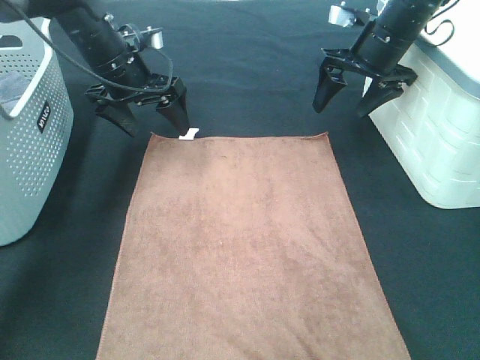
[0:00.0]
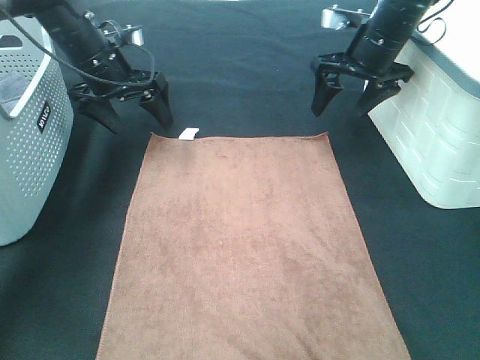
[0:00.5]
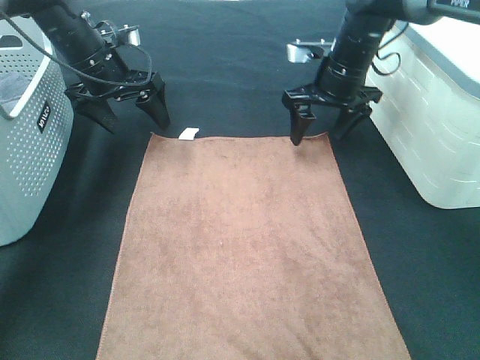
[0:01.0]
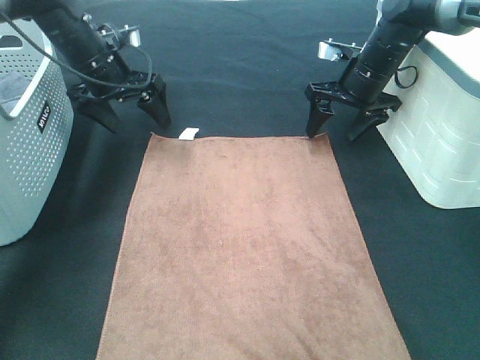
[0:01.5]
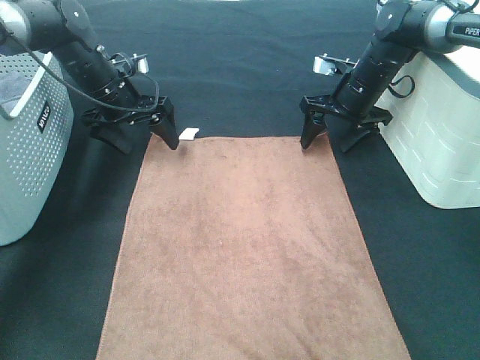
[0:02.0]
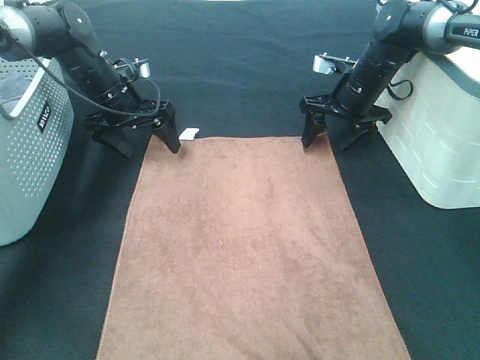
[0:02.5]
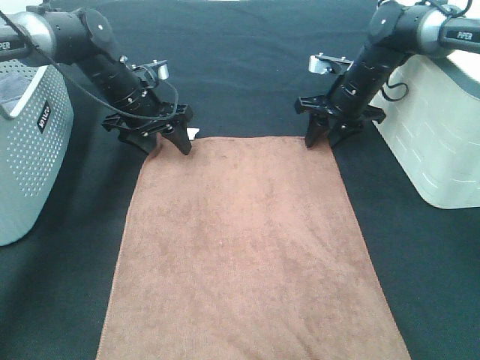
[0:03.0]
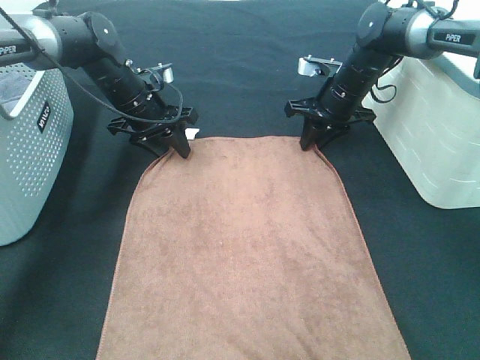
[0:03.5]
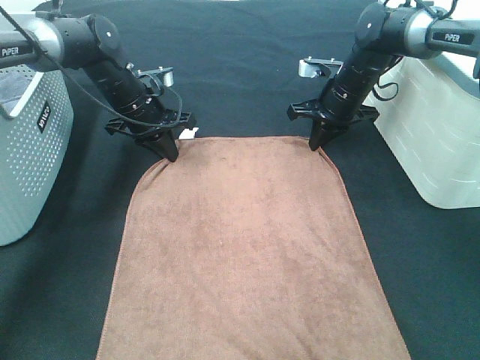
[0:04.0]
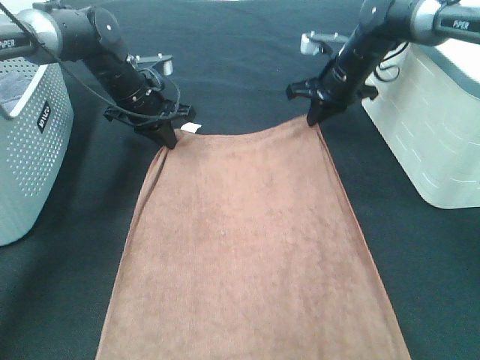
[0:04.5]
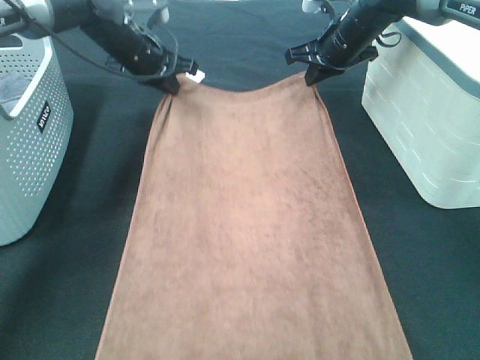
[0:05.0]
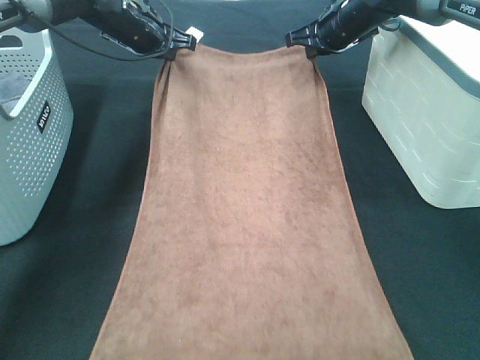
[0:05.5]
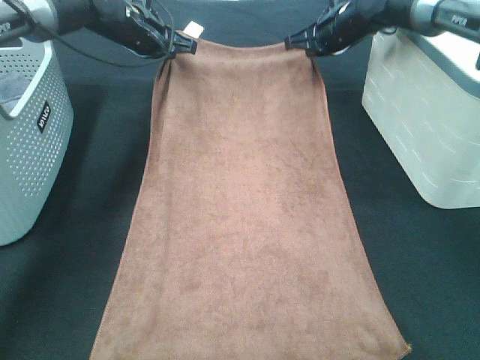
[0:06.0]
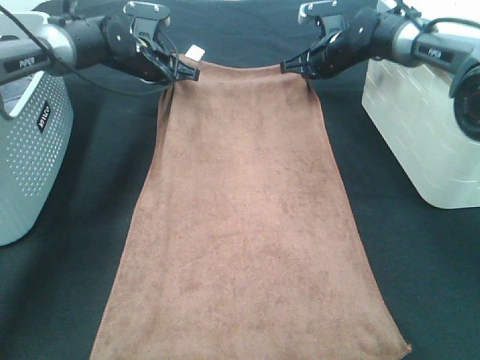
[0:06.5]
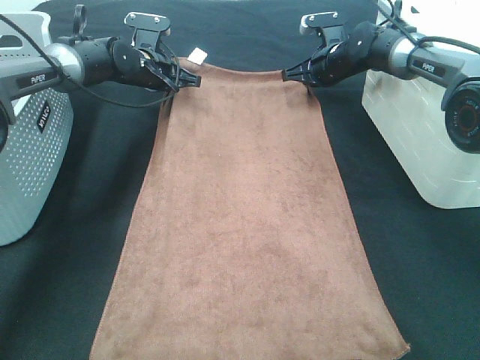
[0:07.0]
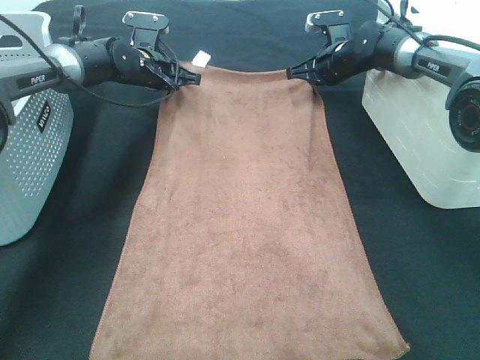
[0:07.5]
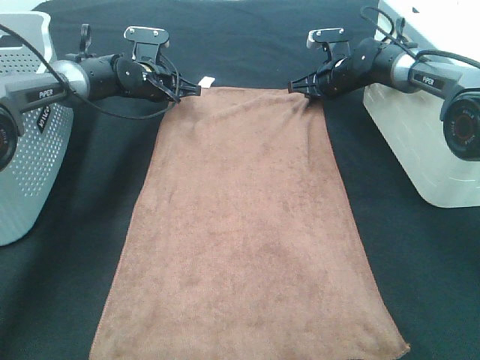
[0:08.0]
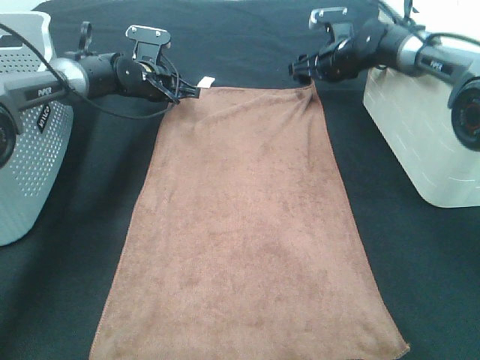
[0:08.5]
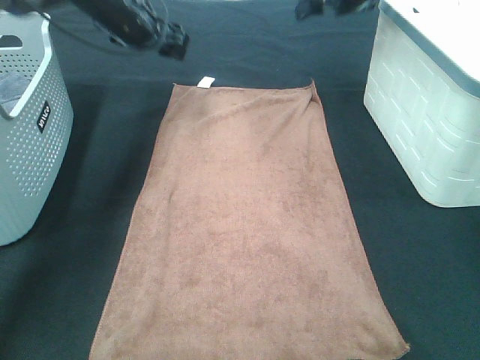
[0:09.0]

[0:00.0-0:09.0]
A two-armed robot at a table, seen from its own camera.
Task of the whole recording: Remove the towel and place it.
0:00.0 to 0:02.0: The left gripper shifts about 5 cm downward. The right gripper shifts some 10 cm downward.
0:02.0 to 0:04.5: The right gripper closes up; the left gripper closes up.
0:04.5 to 0:07.0: Both grippers travel together forward, some 5 cm. The right gripper moves about 5 cm upward and comes back. Meanwhile the left gripper reaches some 10 cm upward, then returns.
0:07.0 to 0:09.0: The grippers both shift upward by some 15 cm. The left gripper opens, while the right gripper opens up.

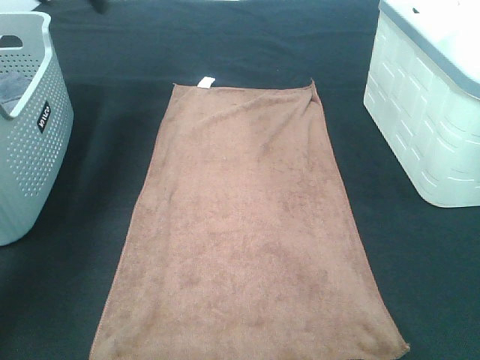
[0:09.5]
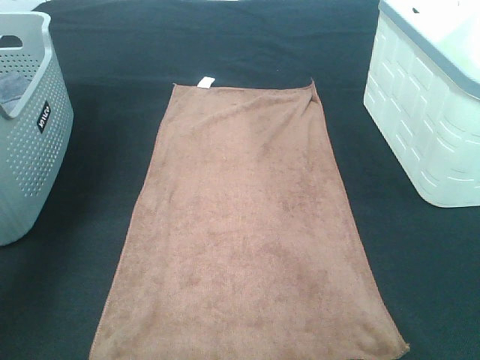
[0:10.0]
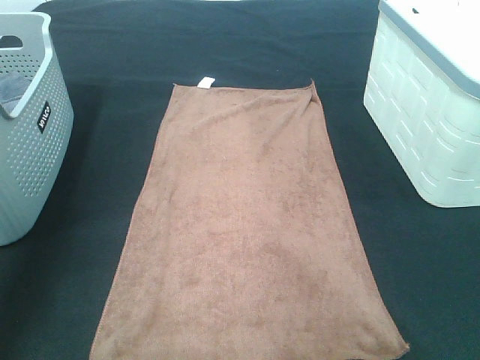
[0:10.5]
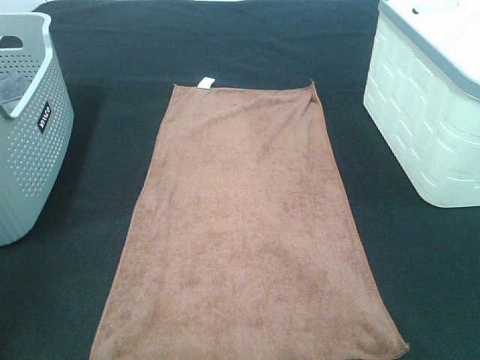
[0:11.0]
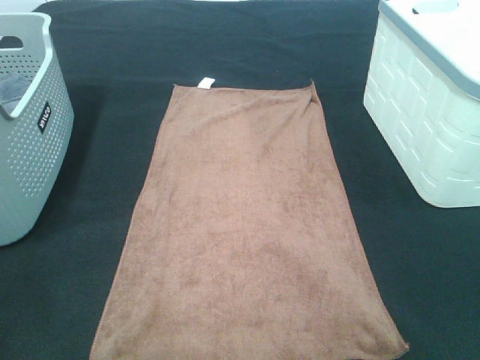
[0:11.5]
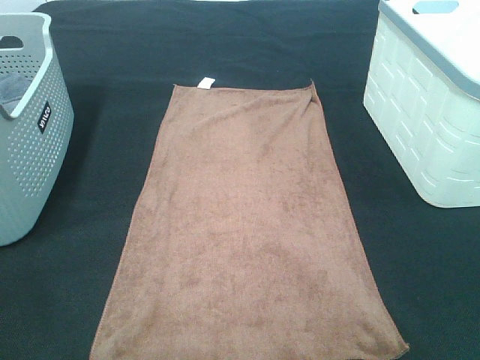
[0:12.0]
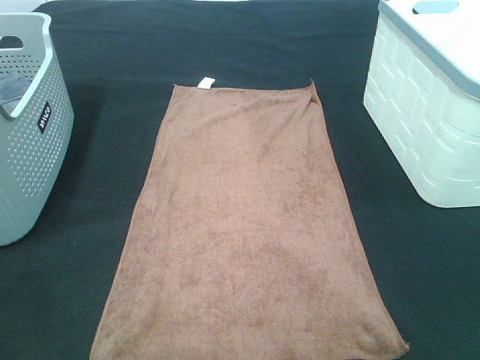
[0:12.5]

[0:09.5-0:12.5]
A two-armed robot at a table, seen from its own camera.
Task of the whole recording: Remove the towel and place it.
0:09.5 to 0:11.0: The left gripper goes approximately 40 cm backward.

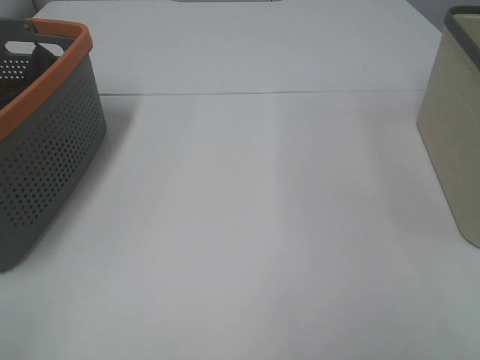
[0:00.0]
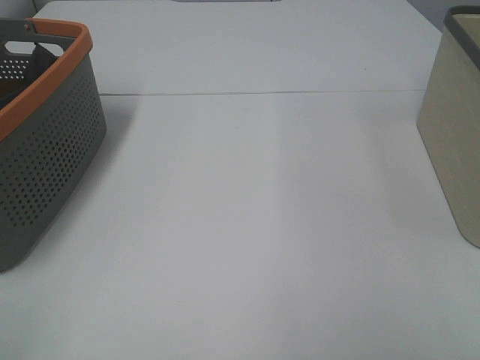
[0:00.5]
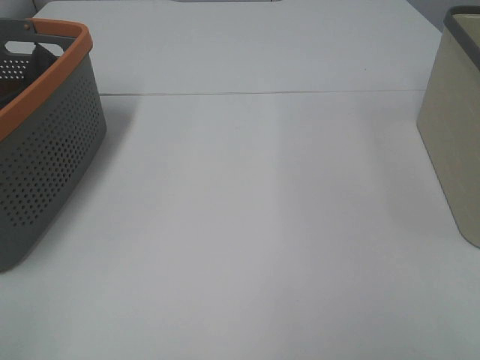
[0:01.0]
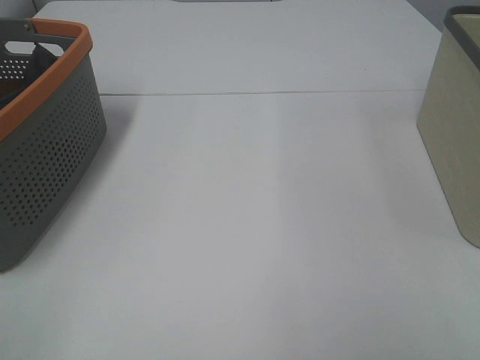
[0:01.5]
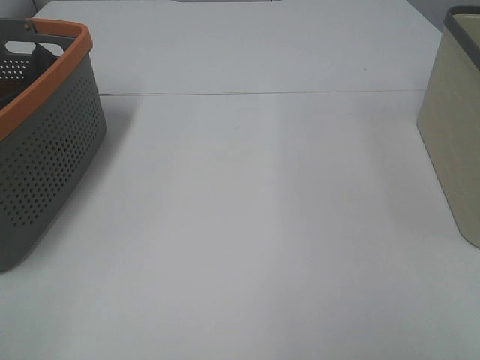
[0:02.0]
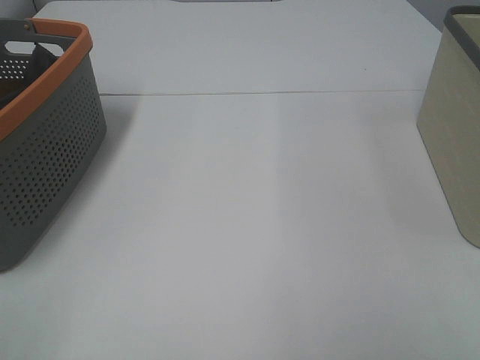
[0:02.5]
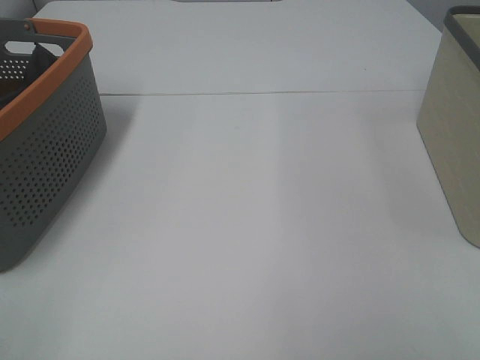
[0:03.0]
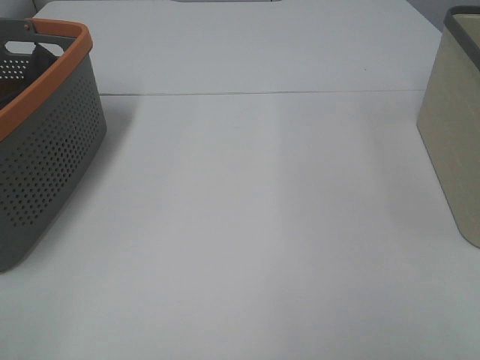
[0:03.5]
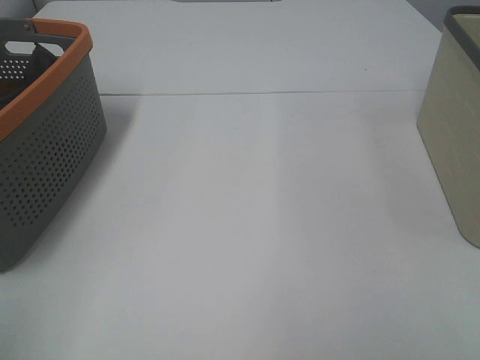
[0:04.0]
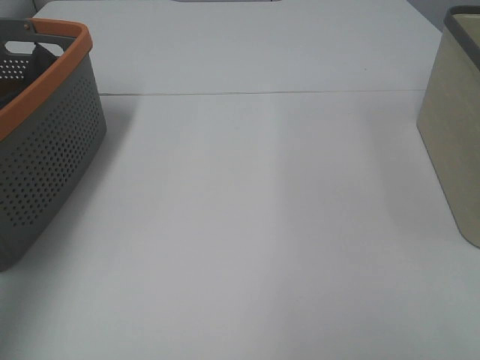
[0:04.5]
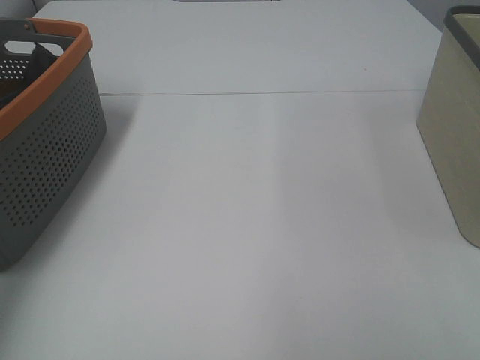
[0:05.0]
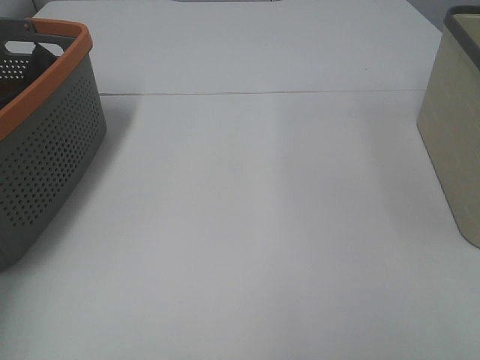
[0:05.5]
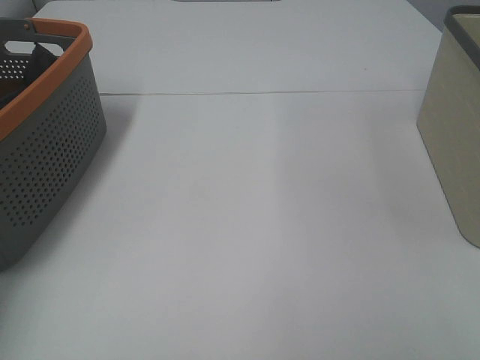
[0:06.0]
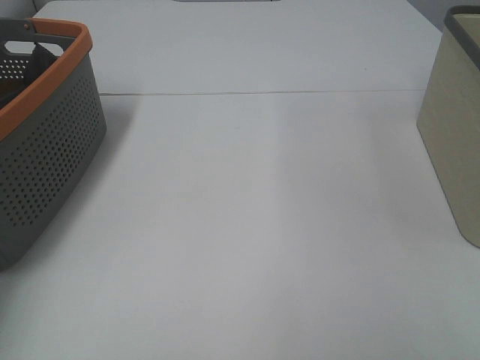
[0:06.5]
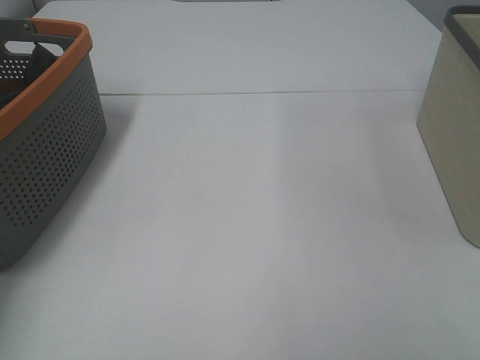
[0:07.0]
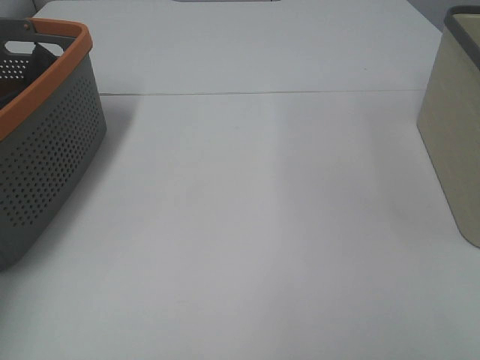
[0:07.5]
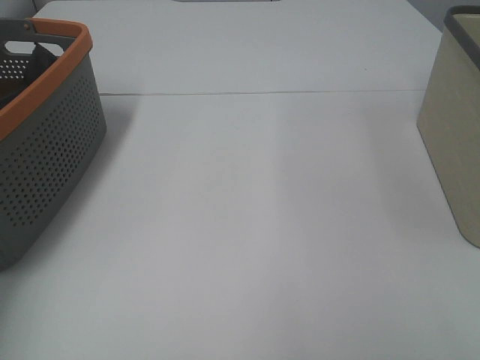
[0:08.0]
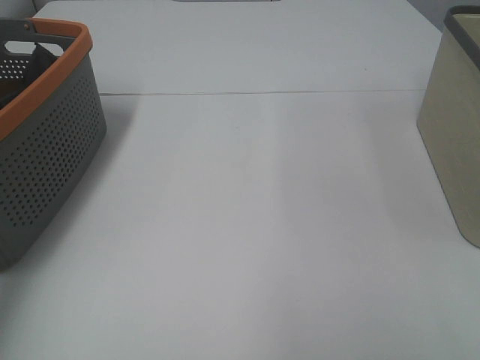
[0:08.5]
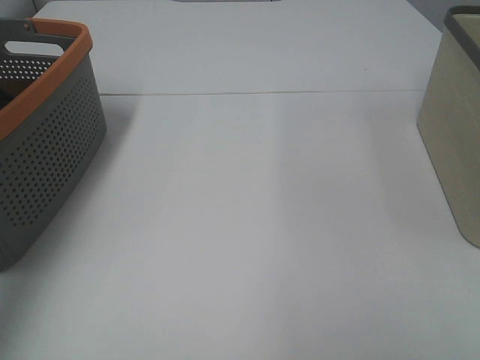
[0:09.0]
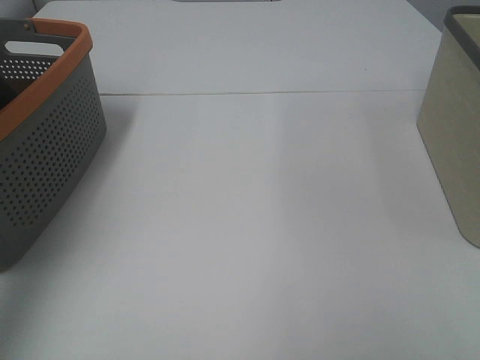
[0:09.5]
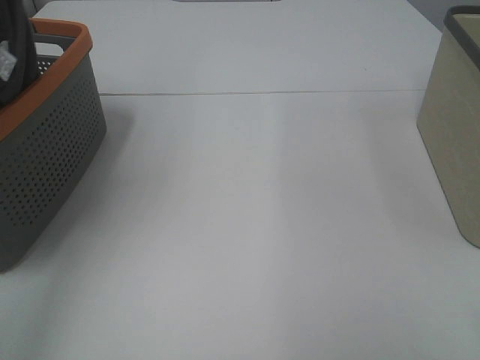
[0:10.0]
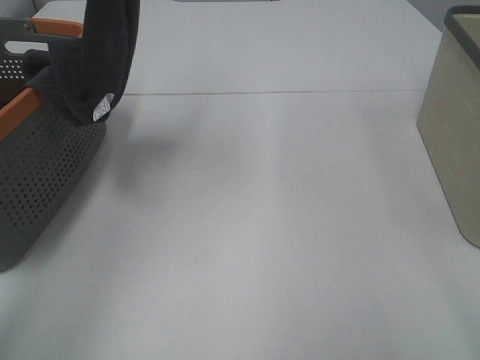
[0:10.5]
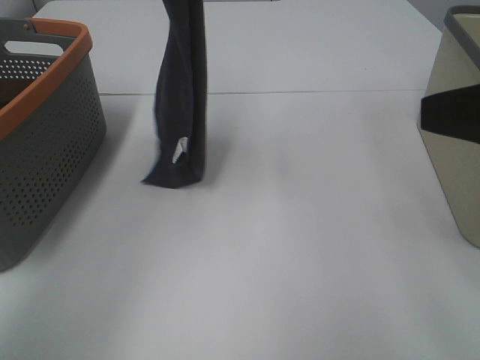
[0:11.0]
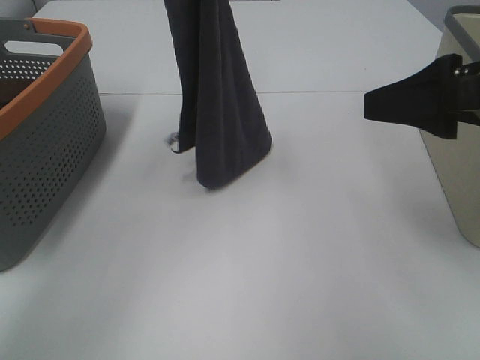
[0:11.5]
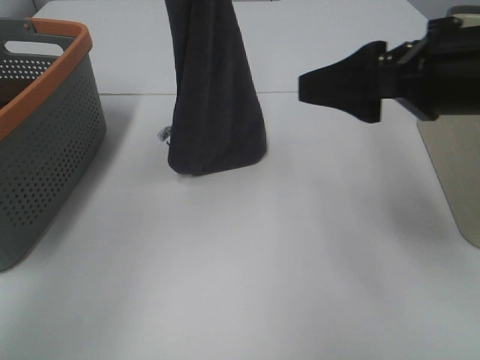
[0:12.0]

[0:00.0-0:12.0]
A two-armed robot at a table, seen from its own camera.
Task of the whole recording: Remove the towel and place it.
0:00.0 to 0:02.0: Neither gripper changes place.
0:08.0 to 0:10.0: The left gripper goes some 30 cm upward and to the right.
0:10.0 to 0:12.0: The left gripper moves to the right, downward and forward, roughly 25 cm. The right gripper is displaced forward by some 20 cm.

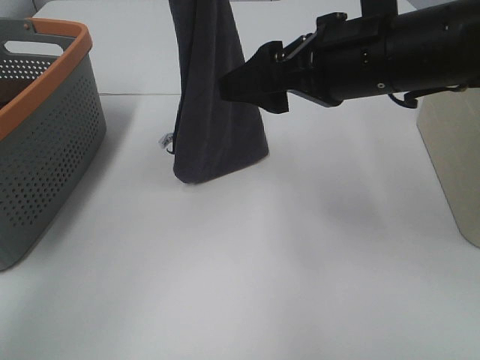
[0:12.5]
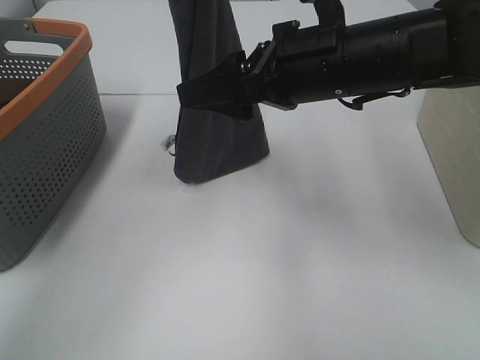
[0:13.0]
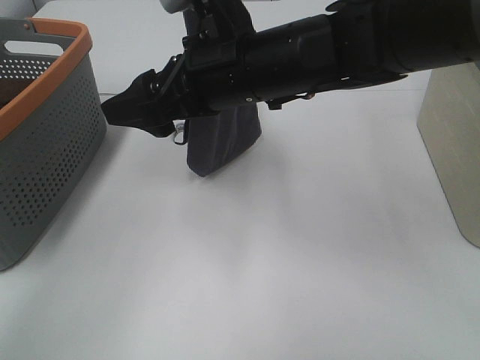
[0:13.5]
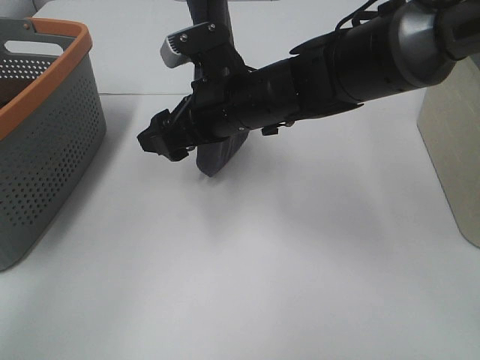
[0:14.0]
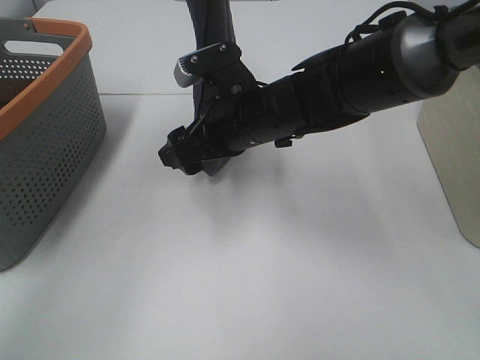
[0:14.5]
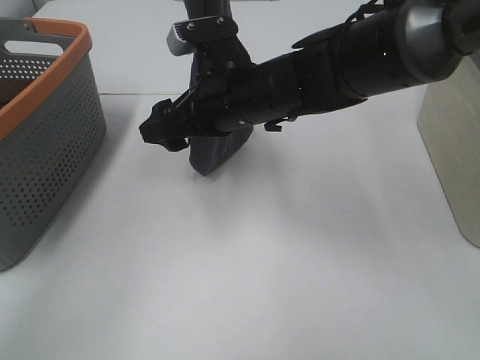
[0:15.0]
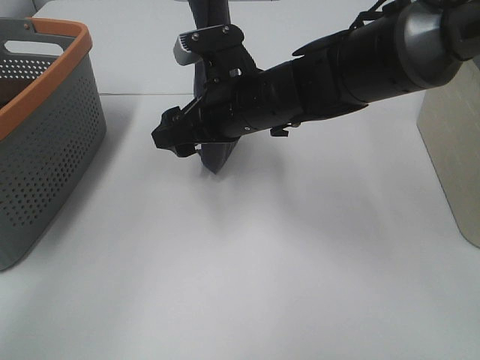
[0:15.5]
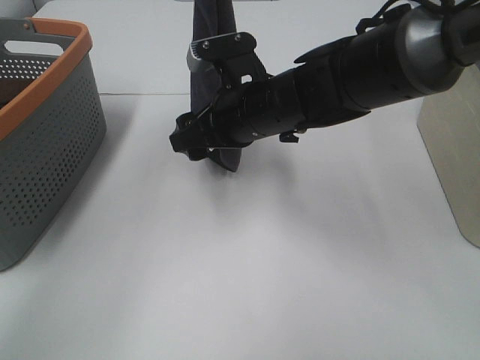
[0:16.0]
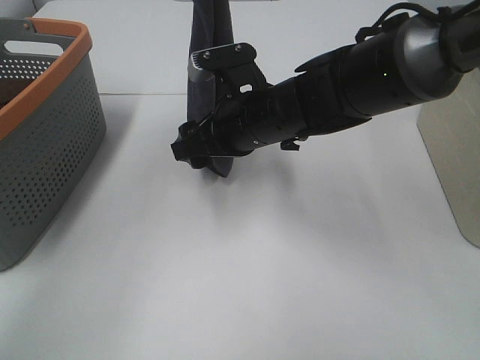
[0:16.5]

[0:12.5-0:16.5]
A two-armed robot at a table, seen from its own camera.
Task of the whole recording: Remove the towel and place it.
0:12.5 to 0:14.5: The right gripper travels downward, to the left and forward by about 15 cm.
0:14.5 to 0:16.5: The grippers make only small movements.
